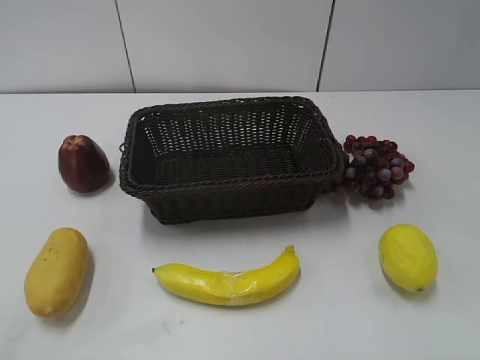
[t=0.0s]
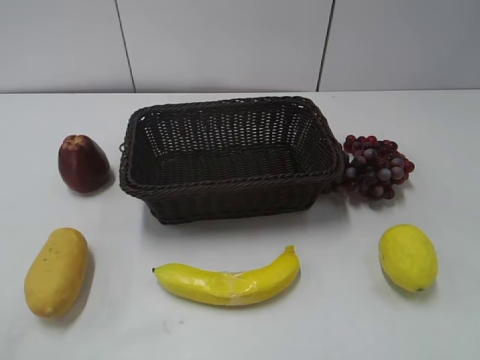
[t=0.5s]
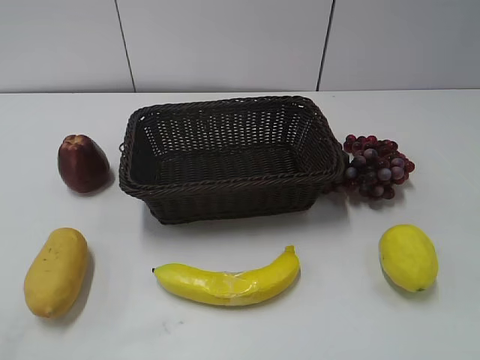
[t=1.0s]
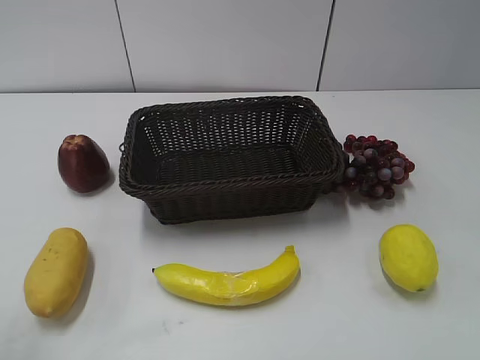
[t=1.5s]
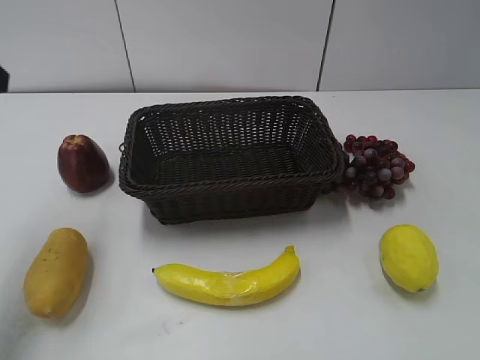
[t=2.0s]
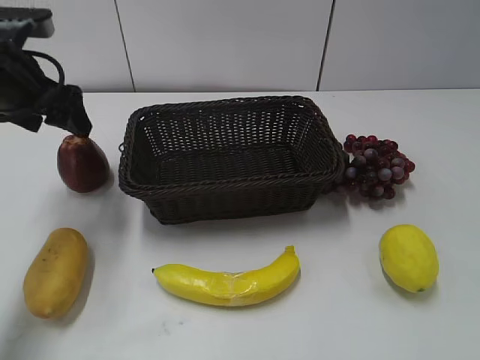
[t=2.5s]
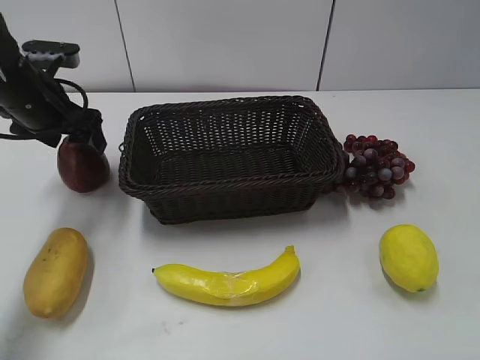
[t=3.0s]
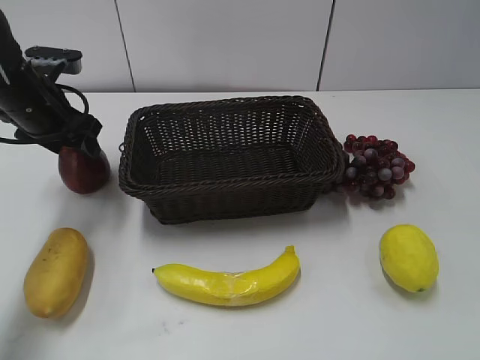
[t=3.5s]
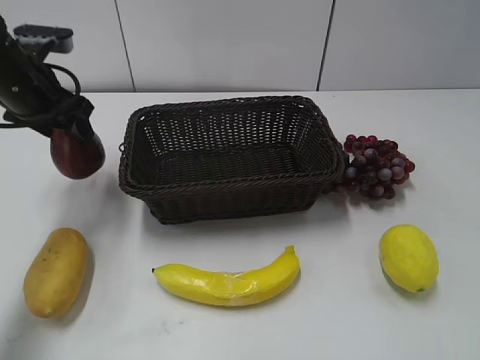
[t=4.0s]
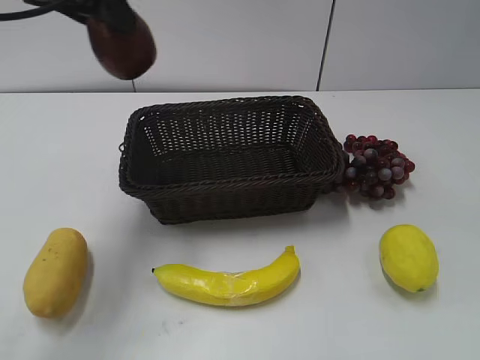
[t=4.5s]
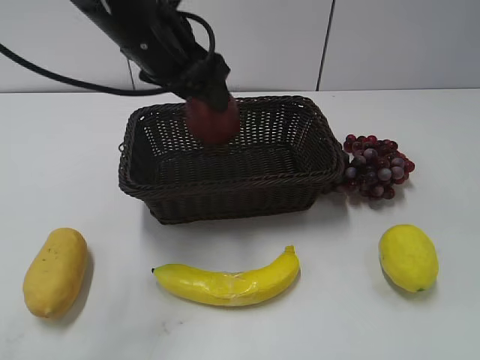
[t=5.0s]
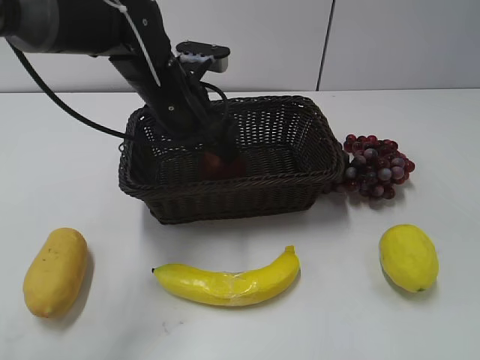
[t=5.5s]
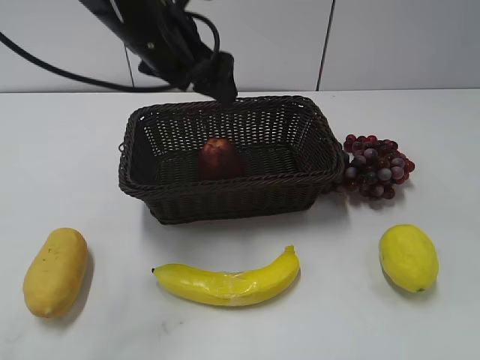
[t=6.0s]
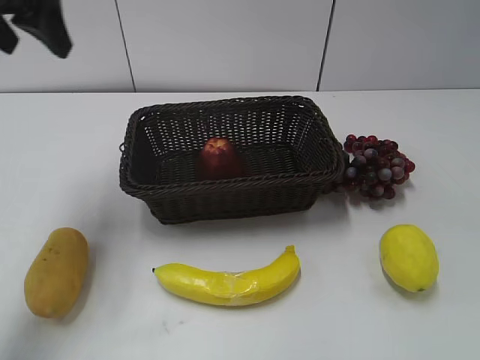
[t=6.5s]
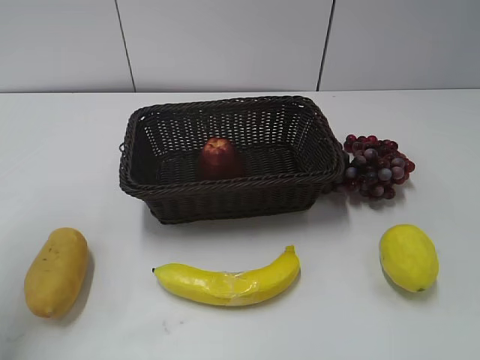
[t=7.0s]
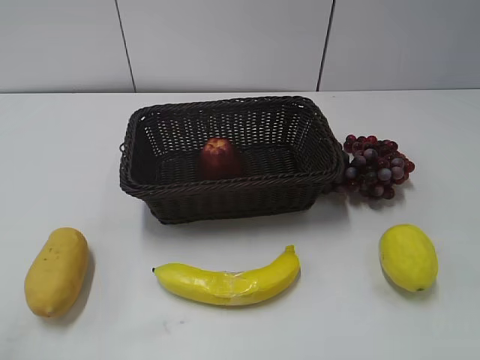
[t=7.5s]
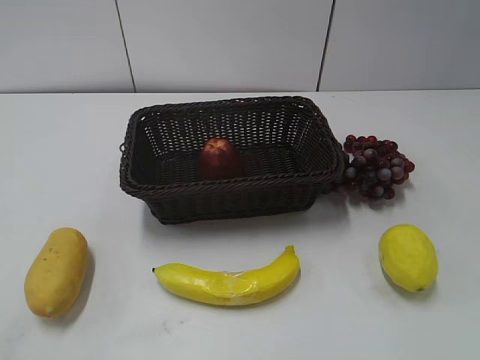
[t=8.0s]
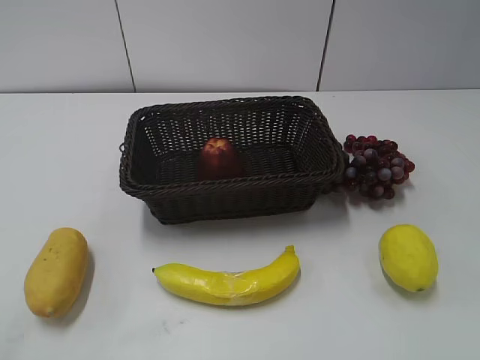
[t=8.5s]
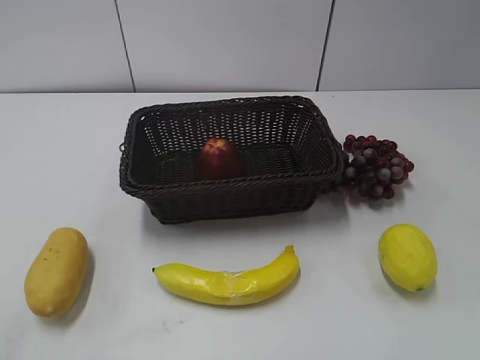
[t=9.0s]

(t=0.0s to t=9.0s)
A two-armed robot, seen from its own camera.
Step, t=2.0s - t=3.0s: Grasp the apple with left gripper.
Step, t=3.5s - t=5.5s: Place the apple in the basket with left gripper.
t=2.0s - t=4.5s: The left gripper goes approximately 15 cm to the right and forward, moves some 15 cm downward and comes back, and closes its fingers.
t=4.5s - t=7.0s: The left gripper heads to the left and backward, covering approximately 15 cm, and opens.
t=7.0s - t=9.0s: The left gripper moves backward, roughly 25 cm.
